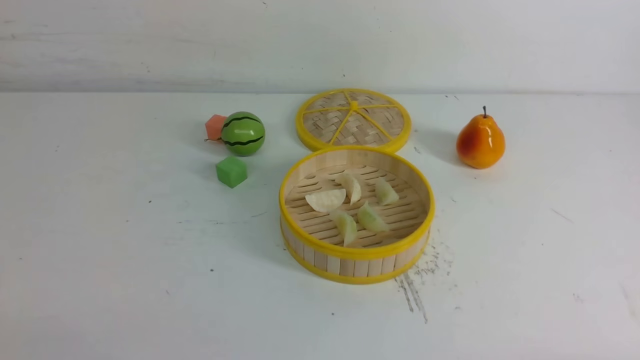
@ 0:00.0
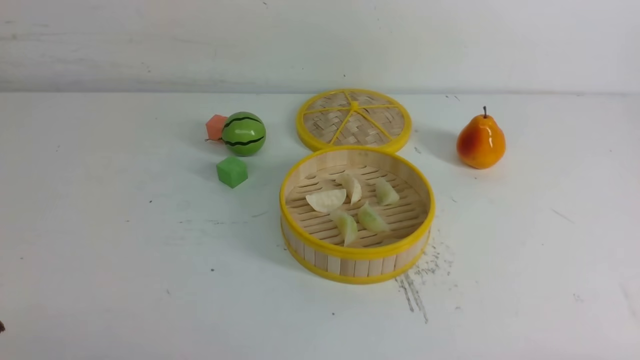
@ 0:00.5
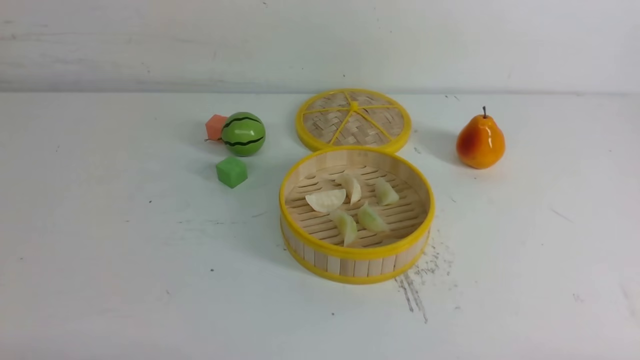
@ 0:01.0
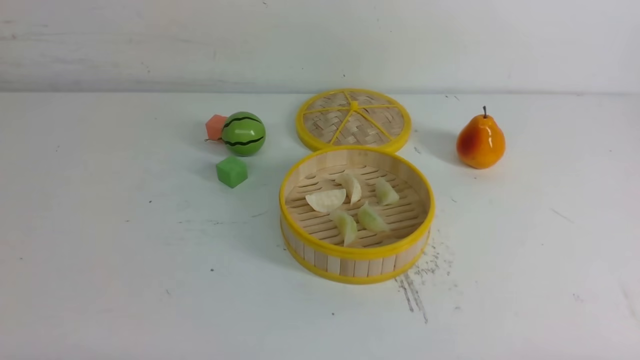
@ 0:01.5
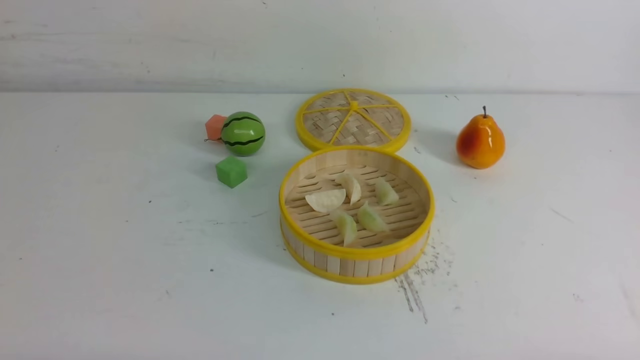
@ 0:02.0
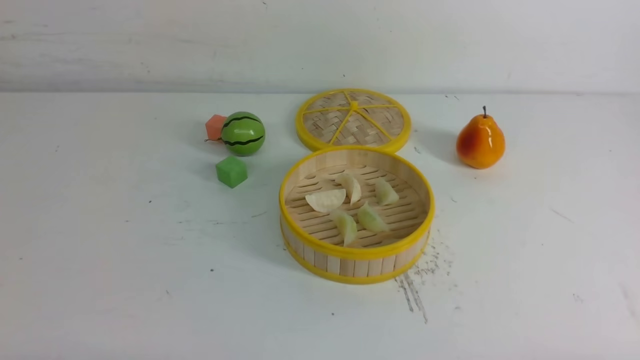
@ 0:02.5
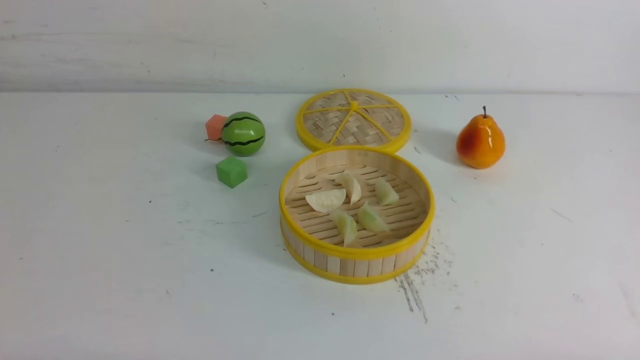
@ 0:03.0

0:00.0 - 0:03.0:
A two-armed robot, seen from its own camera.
Task of the whole recording: put the dumplings into the steamer on the white table.
0:01.5 - 0:03.0: Neither gripper changes place.
